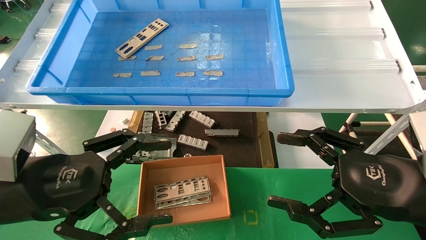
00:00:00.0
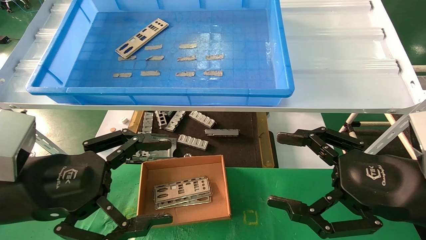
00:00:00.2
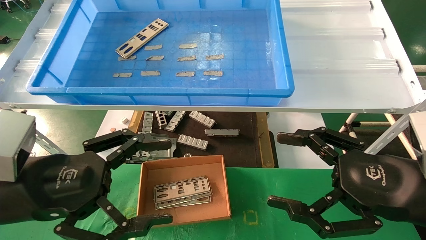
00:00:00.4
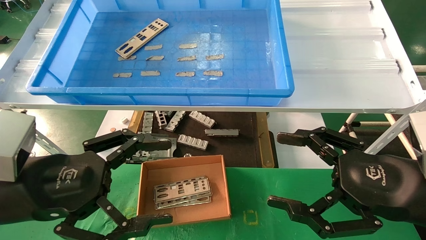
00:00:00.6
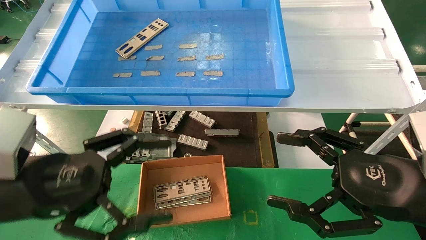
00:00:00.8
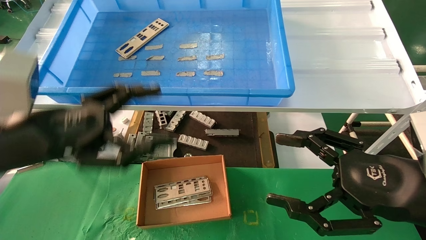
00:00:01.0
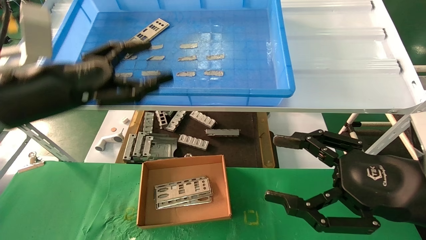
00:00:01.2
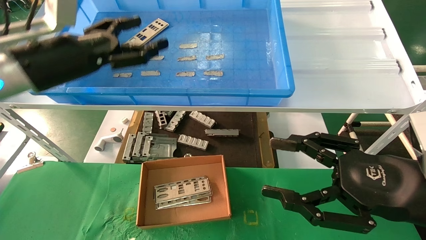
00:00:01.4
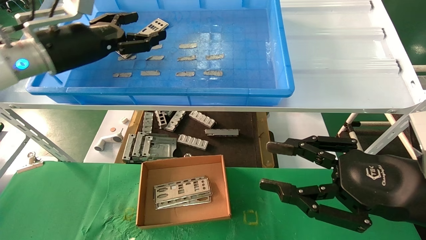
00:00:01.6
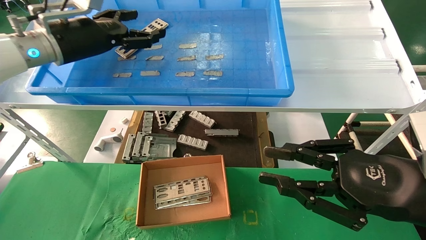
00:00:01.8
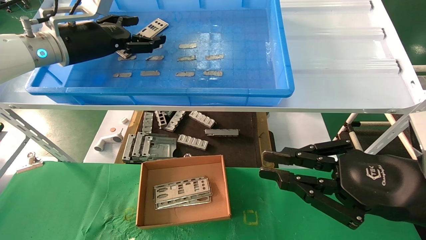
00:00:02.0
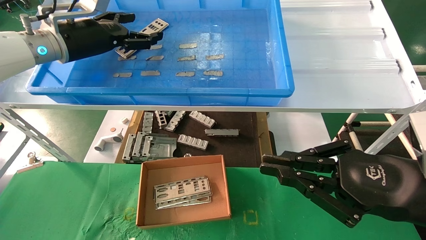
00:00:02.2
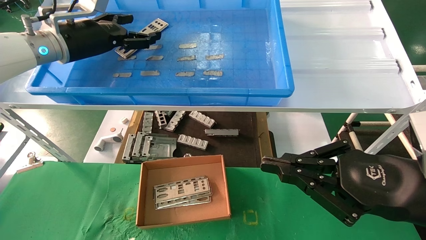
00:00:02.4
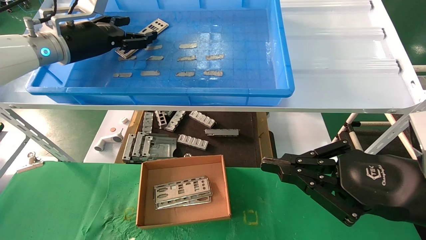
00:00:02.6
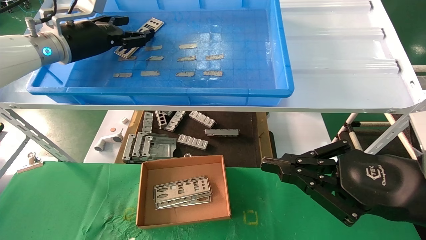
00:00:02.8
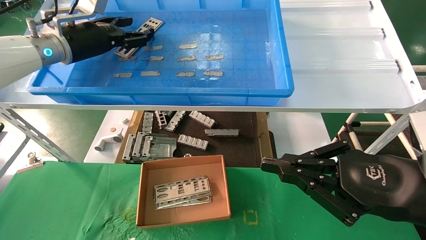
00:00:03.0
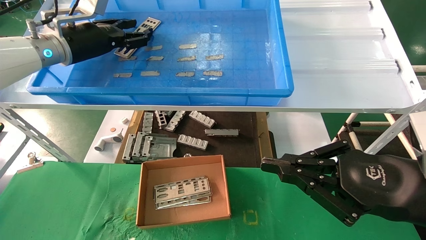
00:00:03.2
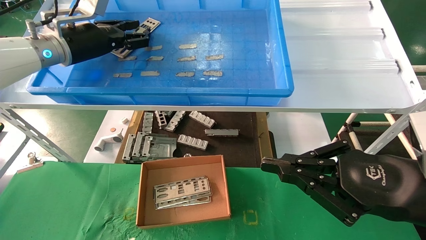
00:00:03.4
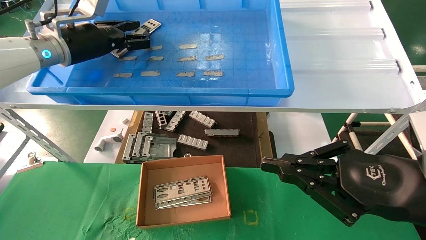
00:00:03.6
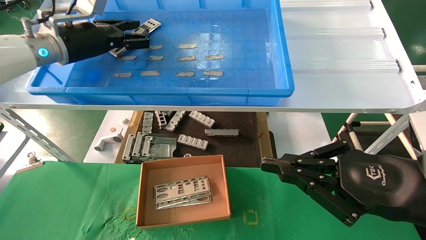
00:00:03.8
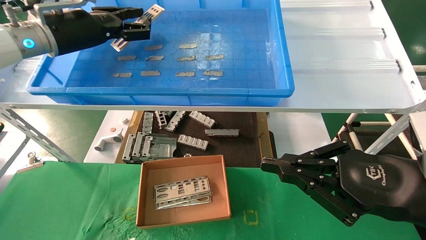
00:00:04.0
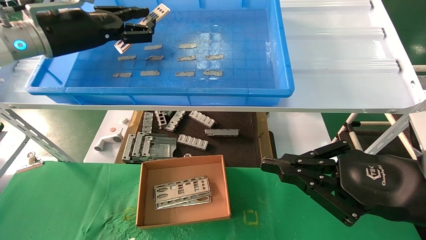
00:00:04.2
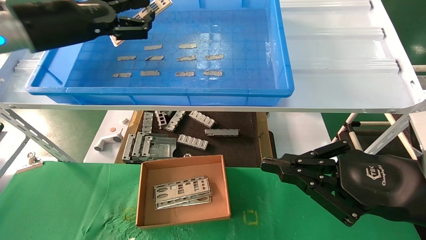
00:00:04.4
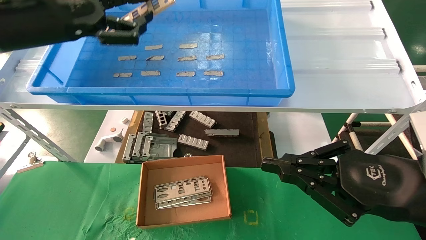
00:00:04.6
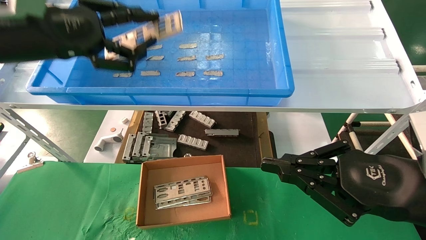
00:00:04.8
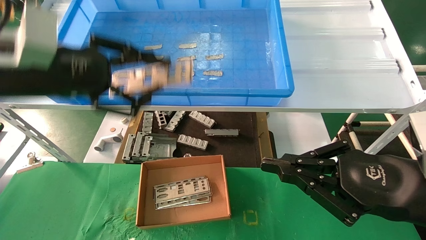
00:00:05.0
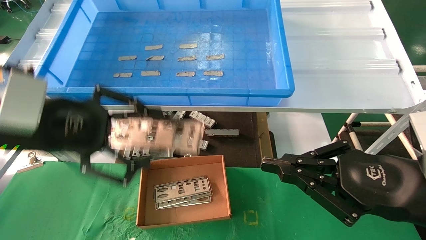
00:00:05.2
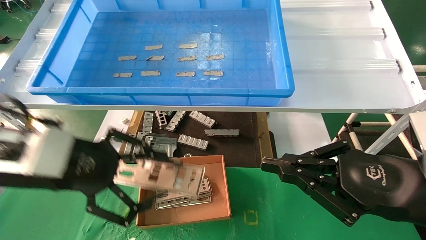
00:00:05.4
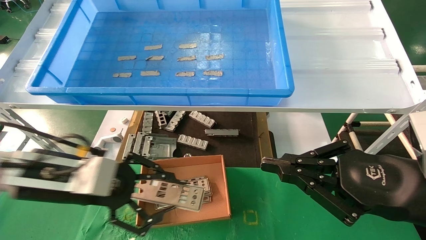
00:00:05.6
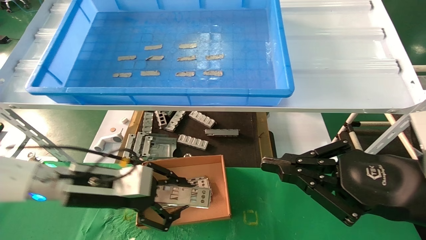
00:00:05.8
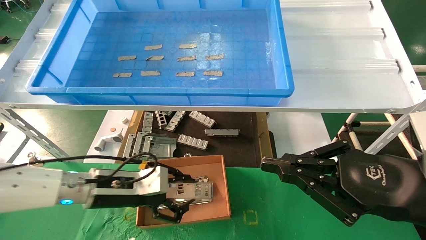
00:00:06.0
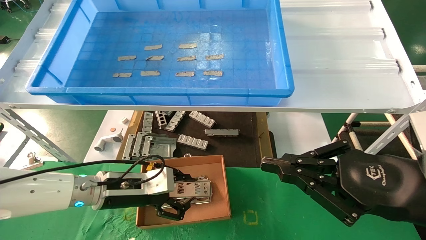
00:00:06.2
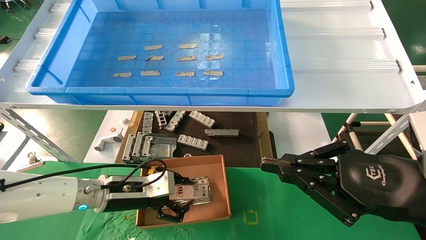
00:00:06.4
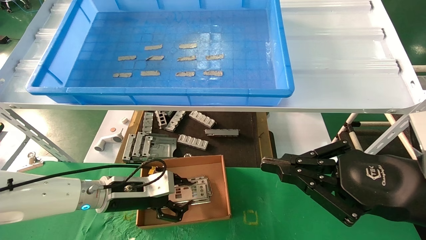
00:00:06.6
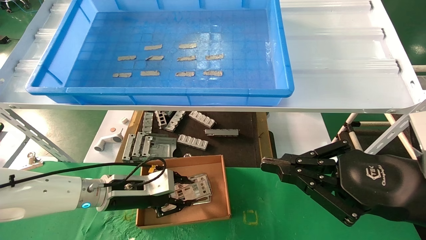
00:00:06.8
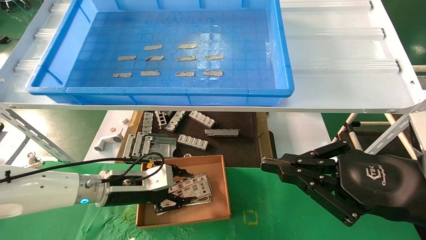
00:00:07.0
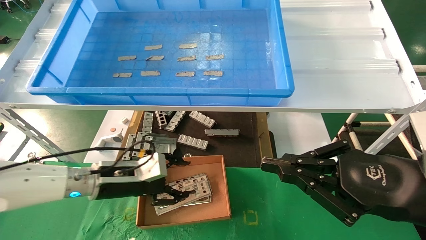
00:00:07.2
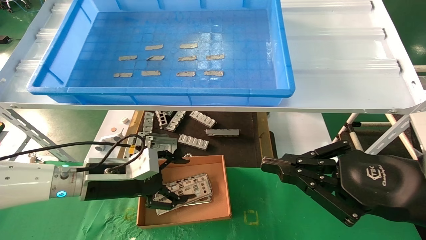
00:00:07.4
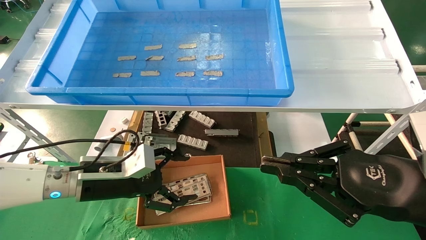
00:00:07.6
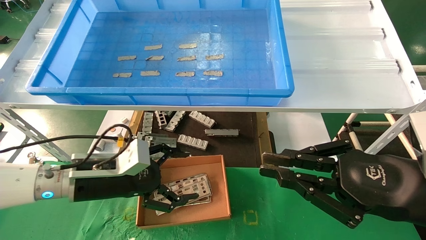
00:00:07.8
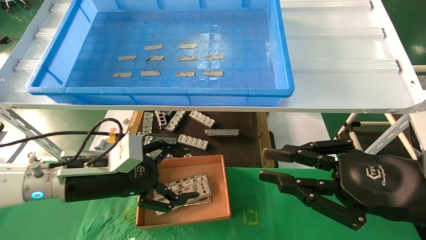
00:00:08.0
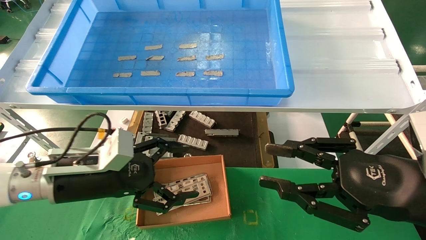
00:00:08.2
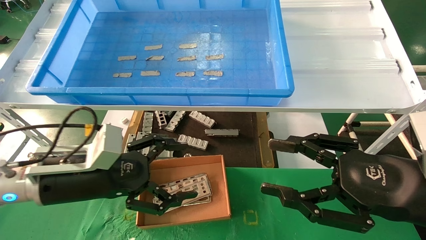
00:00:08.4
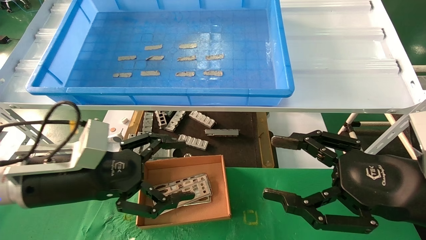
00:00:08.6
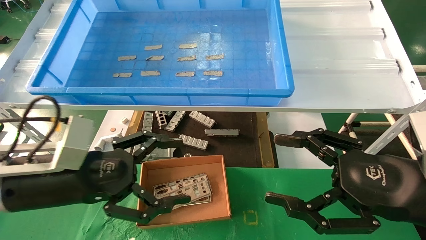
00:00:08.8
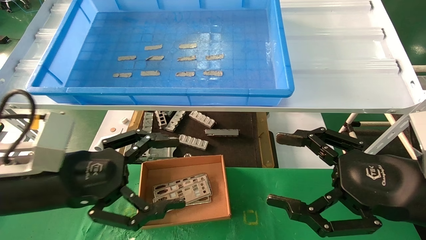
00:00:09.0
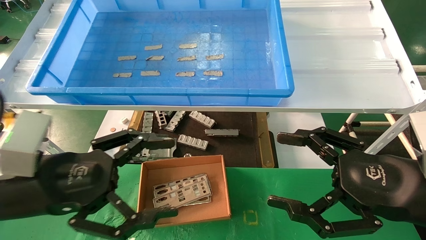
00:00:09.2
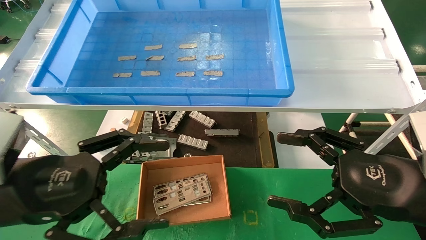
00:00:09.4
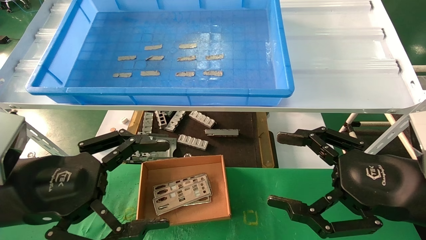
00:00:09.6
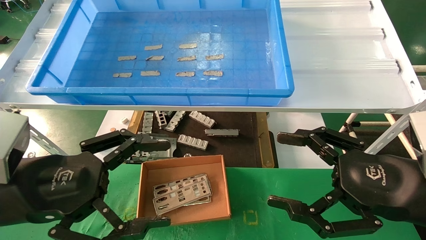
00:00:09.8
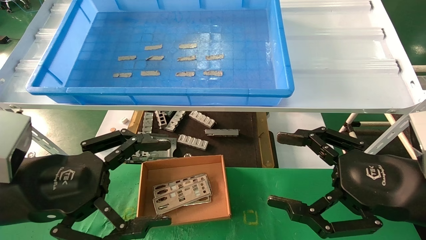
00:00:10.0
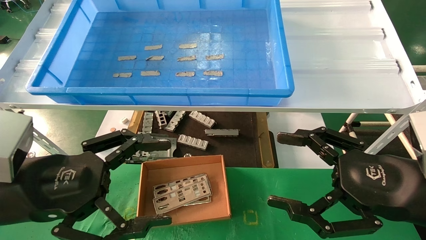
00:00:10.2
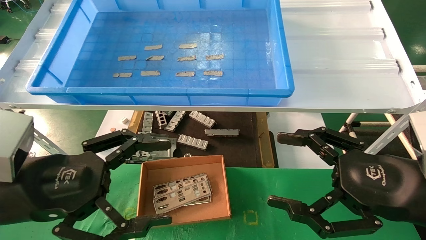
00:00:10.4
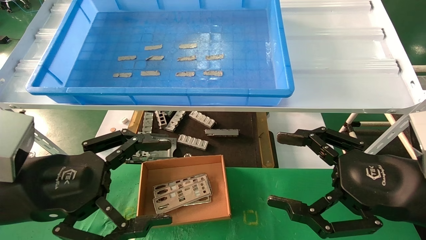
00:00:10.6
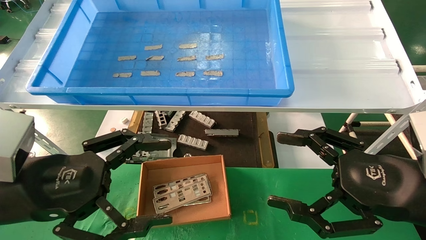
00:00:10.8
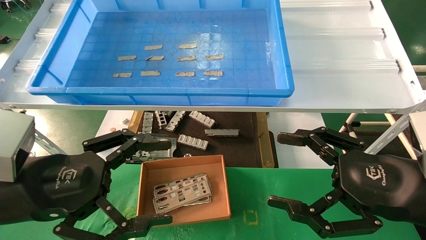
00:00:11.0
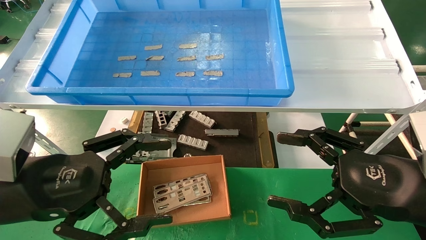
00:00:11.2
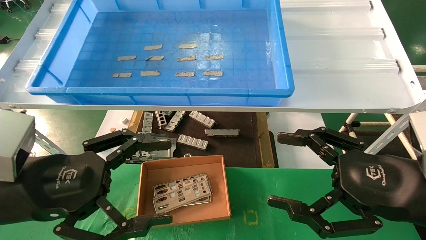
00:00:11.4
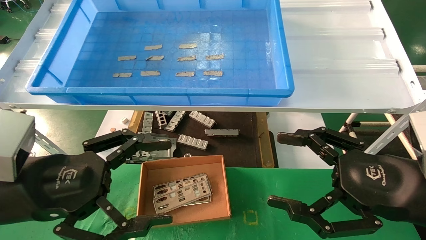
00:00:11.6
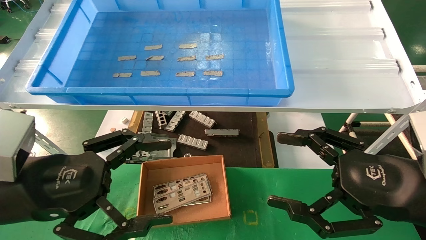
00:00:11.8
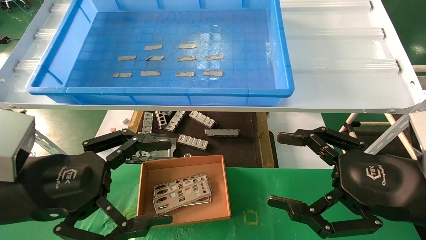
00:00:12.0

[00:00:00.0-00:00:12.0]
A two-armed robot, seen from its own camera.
Task of the whole recording: pick up the parts on the tray and put them in the cardboard box.
Step, 00:00:01.0 to 00:00:03.8: Pick up the IO bracket from the container box.
Step, 00:00:04.0 to 00:00:07.0: Place the IO bracket into the ingredient slot.
00:00:00.0 to 00:00:01.6: The left gripper is displaced forward and upward by some 25 cm; the right gripper closes up.
00:00:01.6 to 00:00:03.0: The left gripper heads forward, covering approximately 5 cm. The right gripper closes its fingers.
00:00:03.0 to 00:00:04.4: The left gripper is displaced backward by approximately 10 cm, and closes.
00:00:04.4 to 00:00:06.0: The left gripper goes approximately 25 cm downward.
00:00:06.0 to 00:00:07.6: The left gripper opens.
00:00:07.6 to 00:00:09.0: The left gripper travels backward and upward by approximately 15 cm; the right gripper opens up.
00:00:09.0 to 00:00:10.4: The grippers make only small movements.
00:00:10.4 to 00:00:12.0: Both grippers stay about where they are.

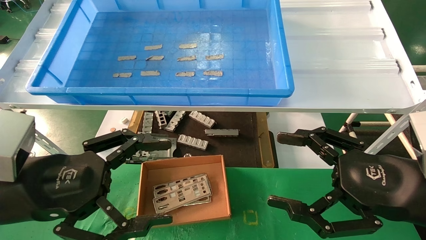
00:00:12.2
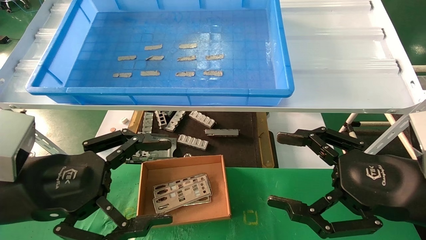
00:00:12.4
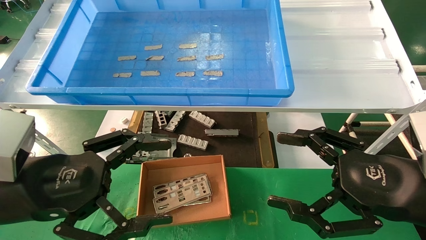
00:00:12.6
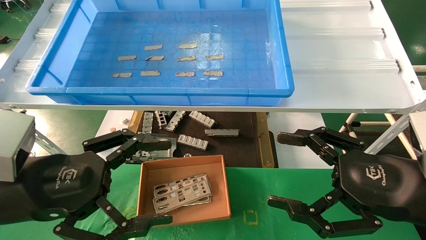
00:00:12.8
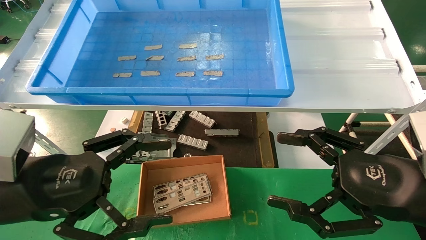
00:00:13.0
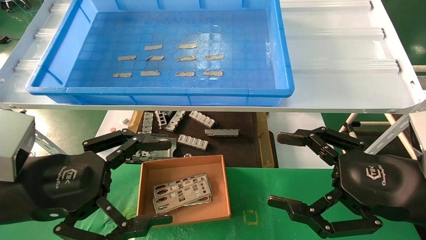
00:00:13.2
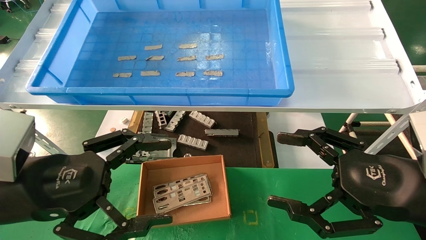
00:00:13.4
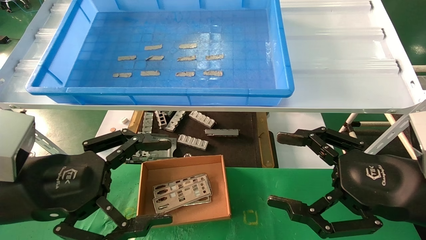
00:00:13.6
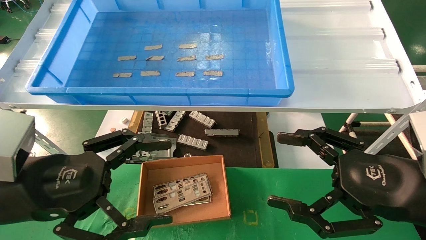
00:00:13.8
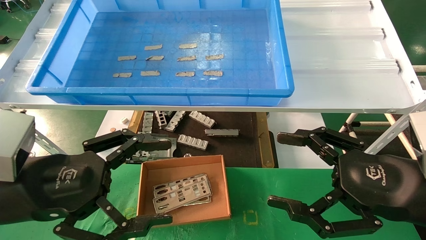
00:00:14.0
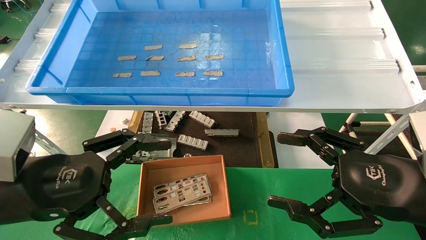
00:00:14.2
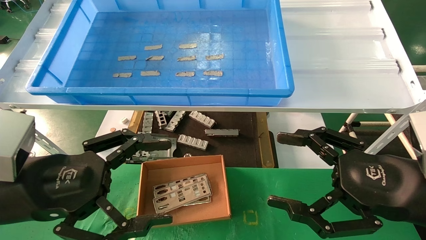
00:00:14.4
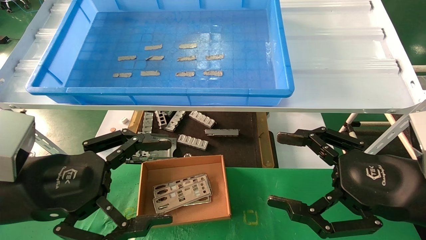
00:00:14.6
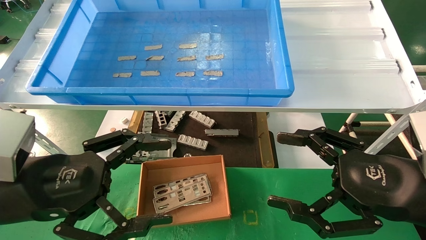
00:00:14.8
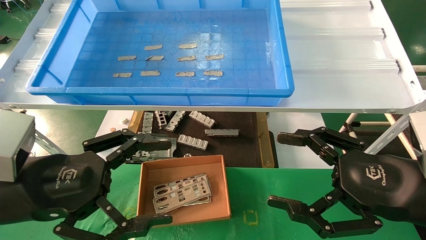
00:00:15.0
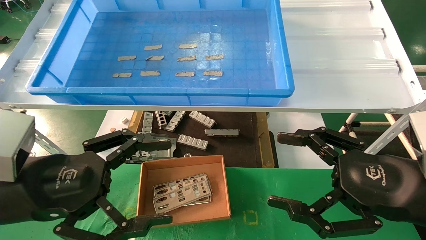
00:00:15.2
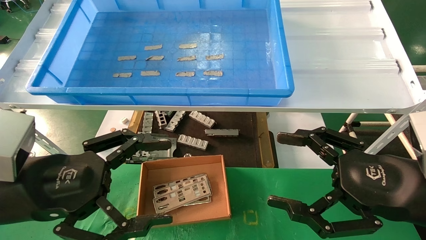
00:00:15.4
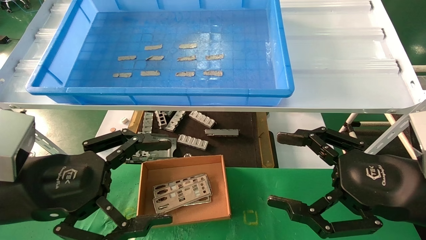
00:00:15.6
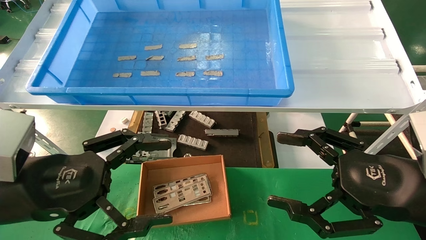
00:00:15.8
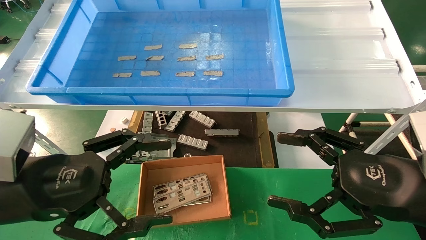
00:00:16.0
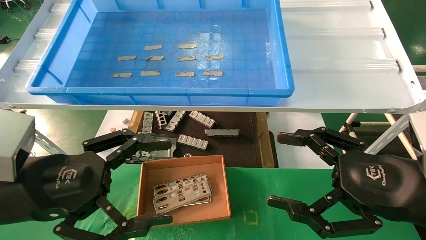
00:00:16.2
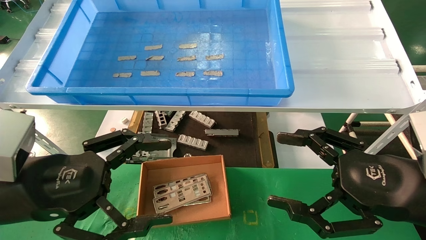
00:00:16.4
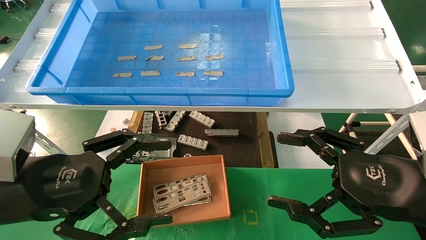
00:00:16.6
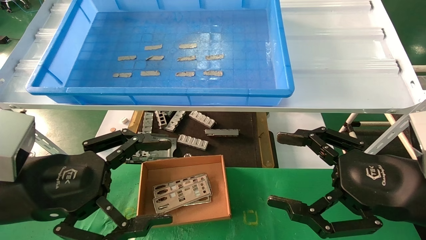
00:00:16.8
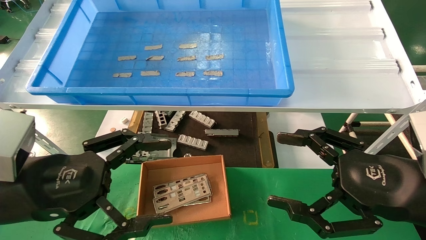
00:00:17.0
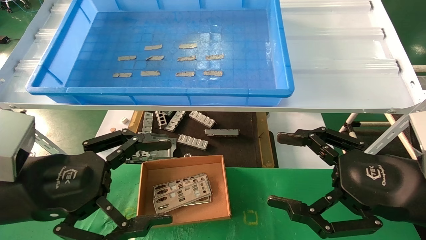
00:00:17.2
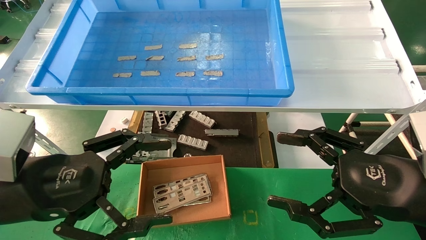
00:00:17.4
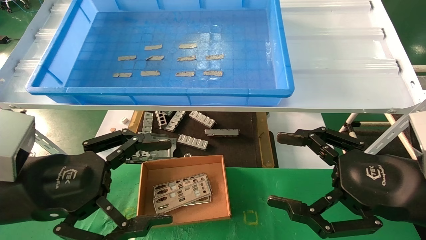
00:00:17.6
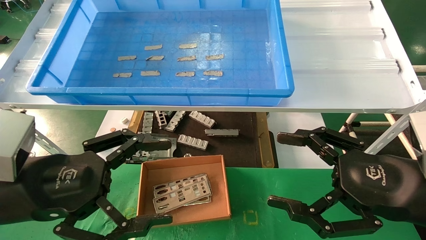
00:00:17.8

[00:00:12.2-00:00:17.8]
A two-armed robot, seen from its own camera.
Task of the whole recording: pick up the parts on the tray and put them in the cardboard box.
00:00:12.2 to 00:00:17.8: Both grippers stay put.
